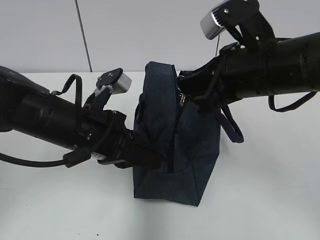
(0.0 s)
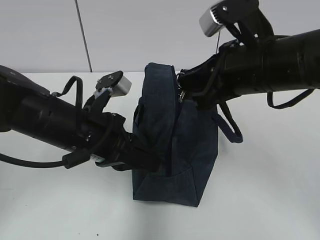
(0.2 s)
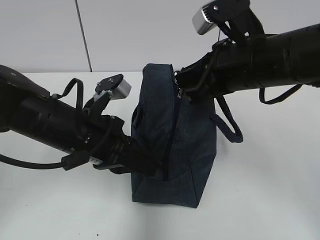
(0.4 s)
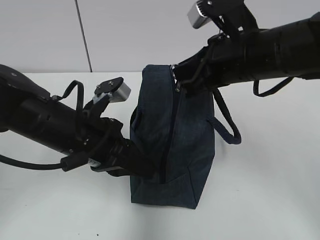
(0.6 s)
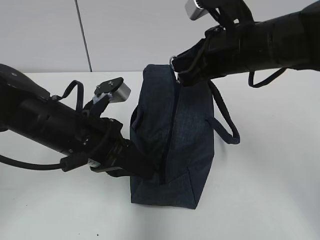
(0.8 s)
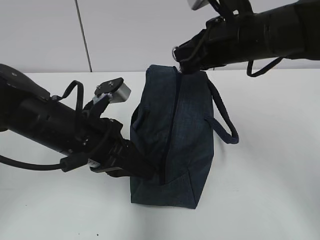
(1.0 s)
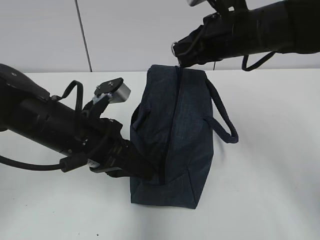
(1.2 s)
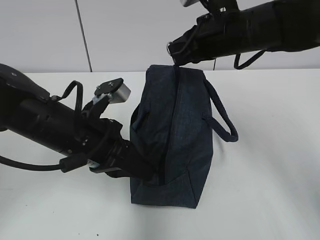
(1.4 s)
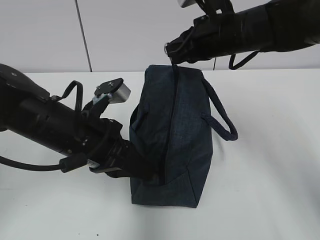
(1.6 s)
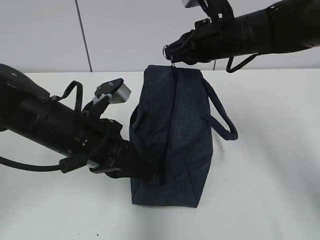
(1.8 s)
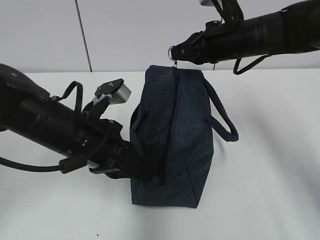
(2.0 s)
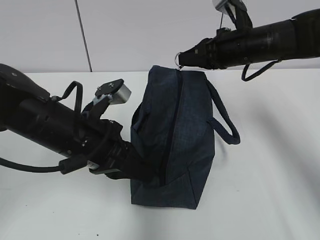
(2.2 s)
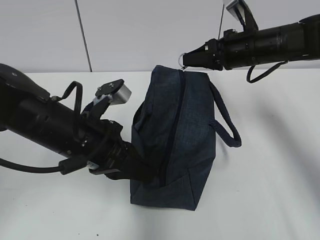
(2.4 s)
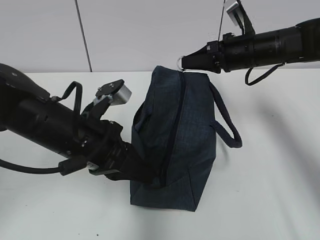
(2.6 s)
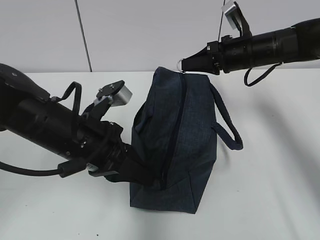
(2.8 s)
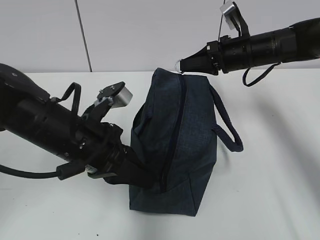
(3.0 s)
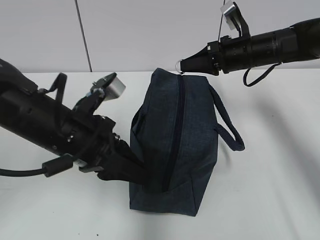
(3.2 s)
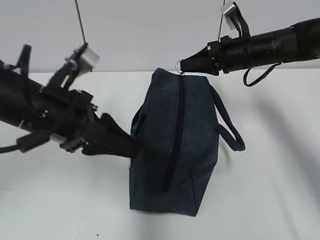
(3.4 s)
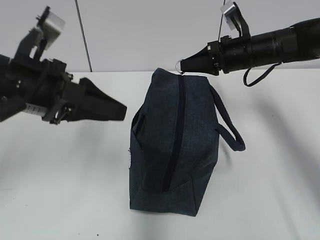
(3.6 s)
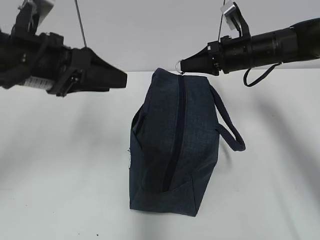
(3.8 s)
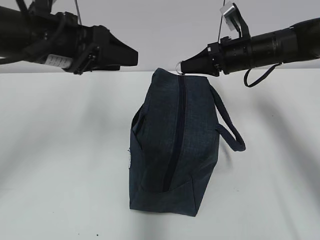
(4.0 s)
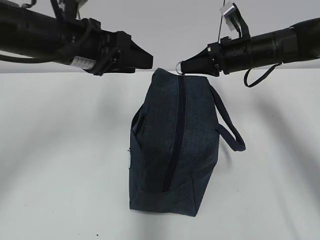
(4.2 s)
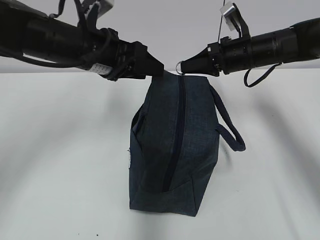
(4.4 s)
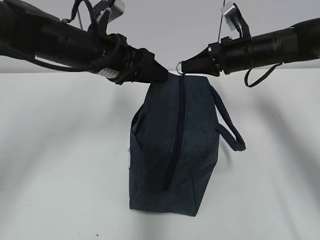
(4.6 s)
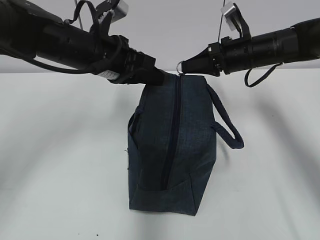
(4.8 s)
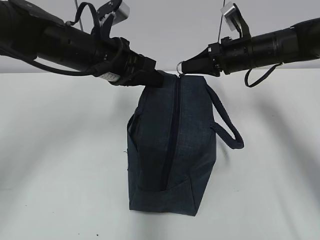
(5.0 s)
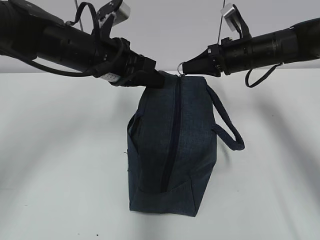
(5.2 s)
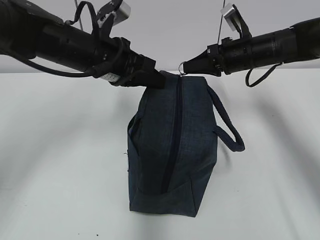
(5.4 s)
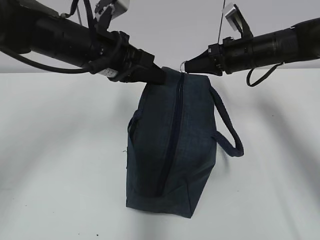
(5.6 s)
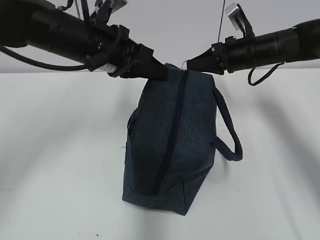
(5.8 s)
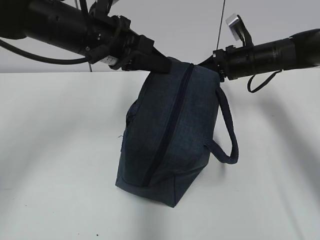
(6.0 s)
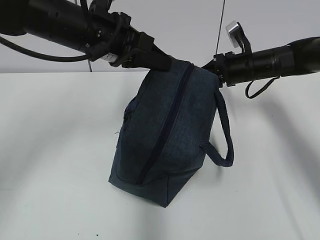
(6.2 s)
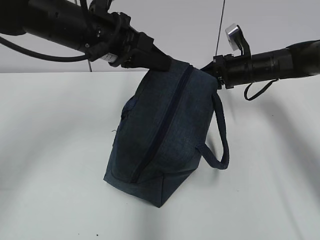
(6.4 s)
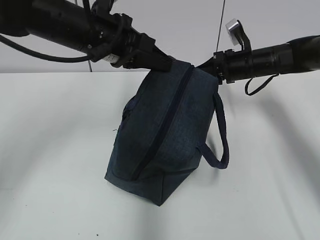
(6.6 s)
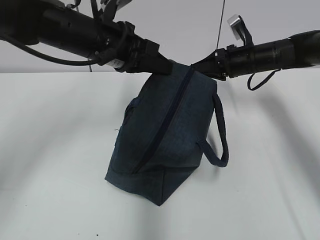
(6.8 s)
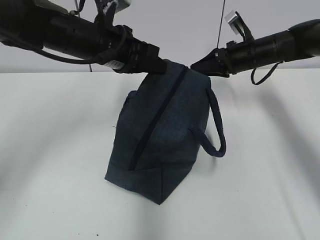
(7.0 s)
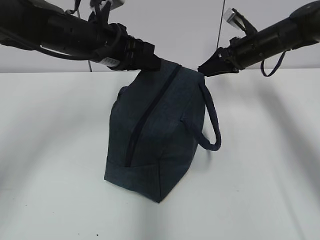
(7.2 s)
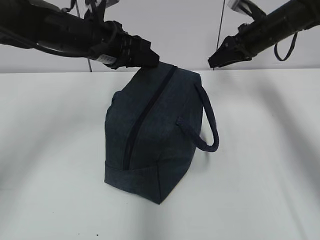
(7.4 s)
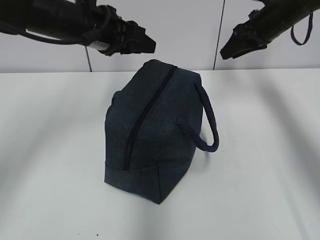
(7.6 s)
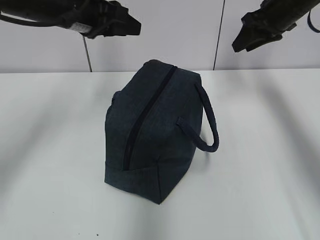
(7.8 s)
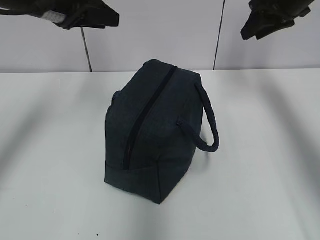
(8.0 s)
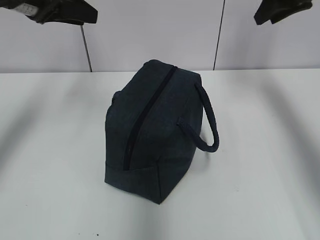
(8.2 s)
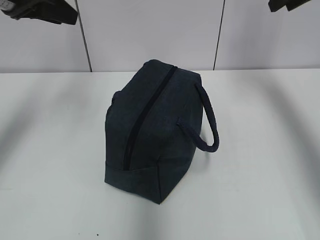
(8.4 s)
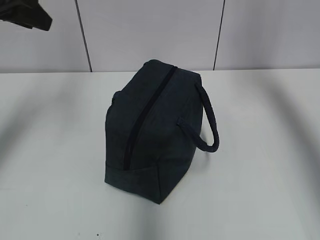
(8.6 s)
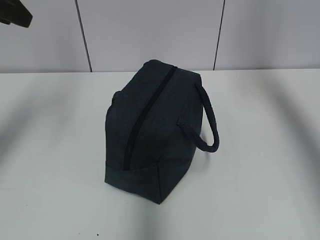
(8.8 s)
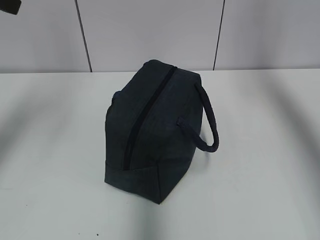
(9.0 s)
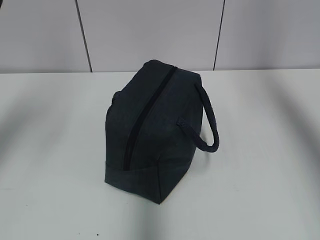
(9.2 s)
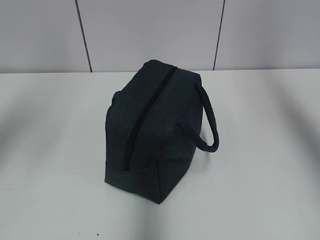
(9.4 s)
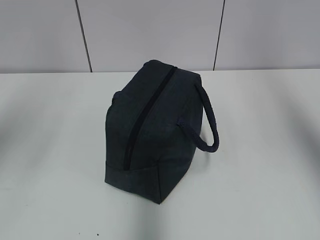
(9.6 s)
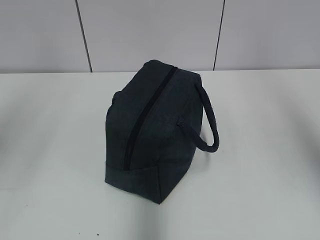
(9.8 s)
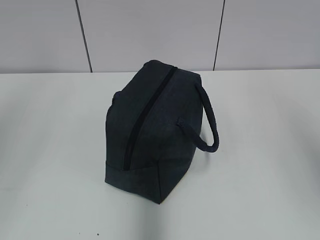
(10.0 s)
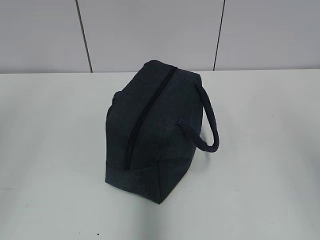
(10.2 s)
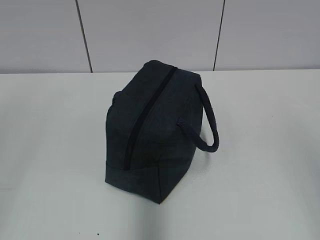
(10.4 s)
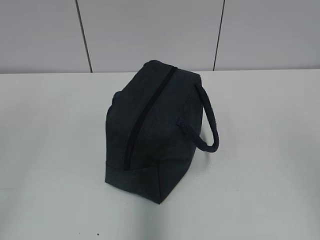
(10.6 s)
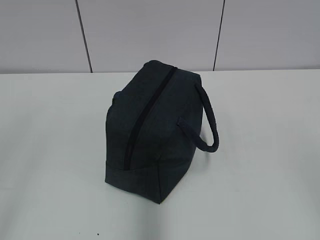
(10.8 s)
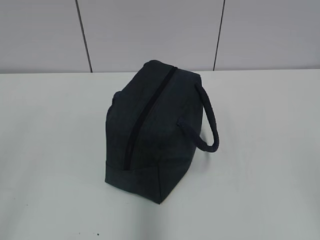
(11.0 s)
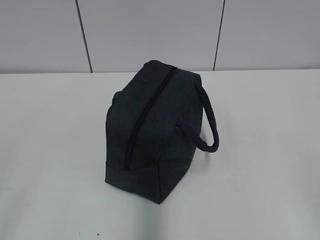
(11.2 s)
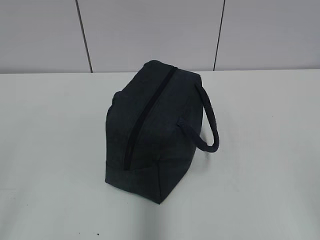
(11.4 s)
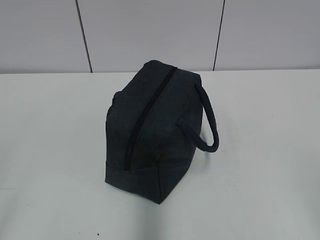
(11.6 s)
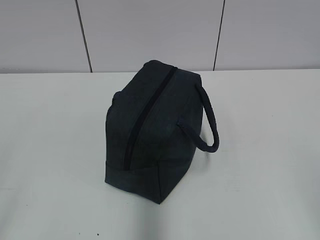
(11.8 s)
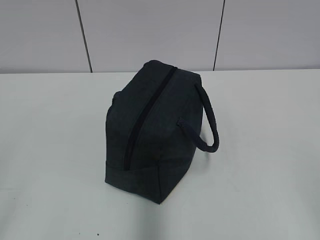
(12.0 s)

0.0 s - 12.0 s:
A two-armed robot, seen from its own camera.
Step, 0.0 s - 6.6 s: Pull the zipper with your right hand.
Step, 6.8 s - 7.2 s: Grab the lunch bag with your left hand.
0.0 s - 1.6 s: The right gripper is displaced forward by approximately 10 cm.
1.6 s - 3.0 s: The right gripper is displaced to the right, downward and forward by approximately 10 cm.
3.0 s - 4.4 s: The left gripper goes roughly 15 cm forward and upward, and opens up.
4.4 s - 6.0 s: The left gripper closes up.
6.0 s - 7.6 s: The right gripper is displaced upward by some 10 cm, and opens its fingers; the left gripper opens up.
7.6 s - 9.0 s: The left gripper is displaced to the left, upward and backward by roughly 20 cm. The right gripper travels upward and backward by about 25 cm.
9.0 s - 10.4 s: The two grippers go roughly 30 cm backward.

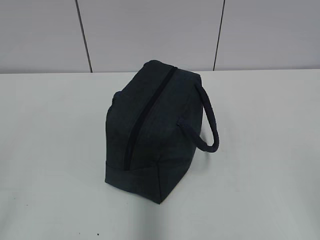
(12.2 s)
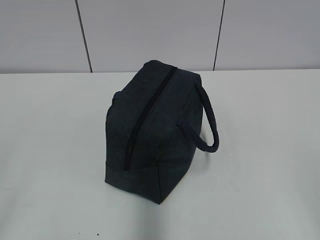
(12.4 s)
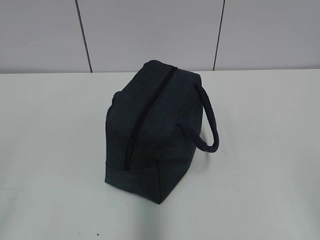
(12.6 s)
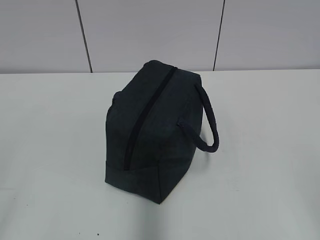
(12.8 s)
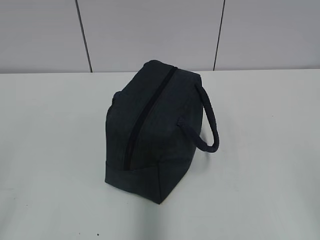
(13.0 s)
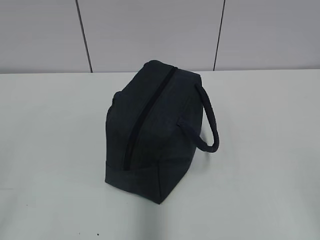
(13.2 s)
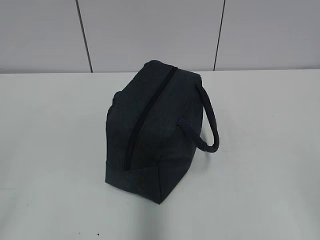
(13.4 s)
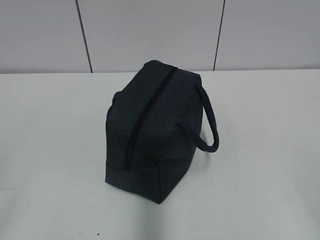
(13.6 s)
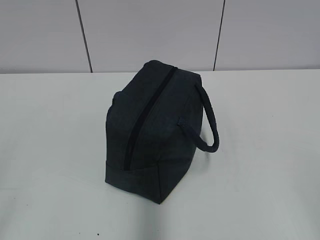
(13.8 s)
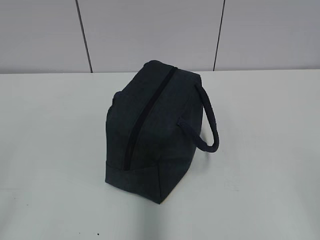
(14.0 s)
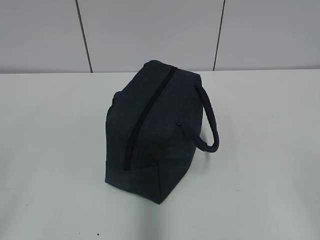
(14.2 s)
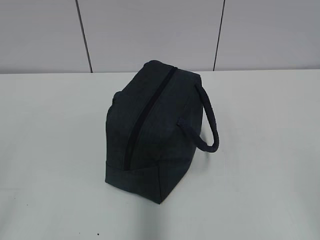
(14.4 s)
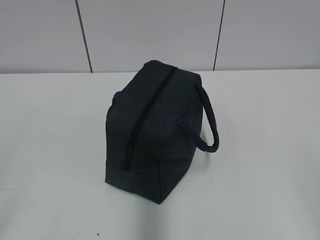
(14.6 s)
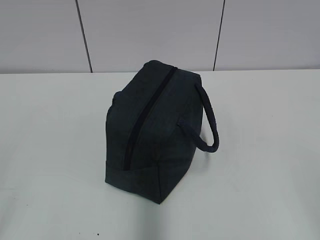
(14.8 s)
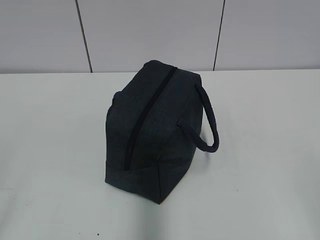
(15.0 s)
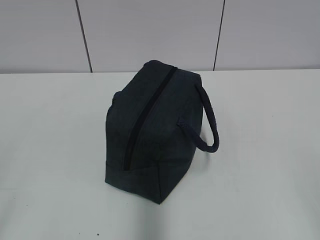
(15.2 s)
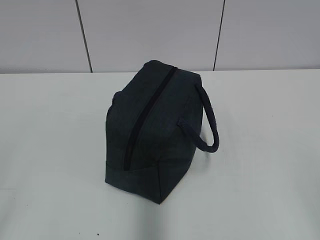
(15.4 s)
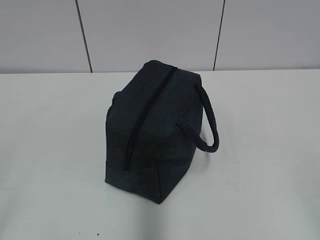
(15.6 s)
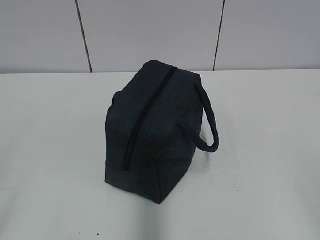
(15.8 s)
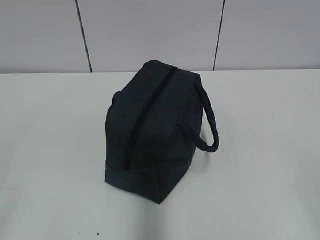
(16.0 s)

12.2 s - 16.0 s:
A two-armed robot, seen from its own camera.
12.2 s - 13.4 s: The two grippers keep their place.
14.8 s - 16.0 s: The two grippers keep their place.
